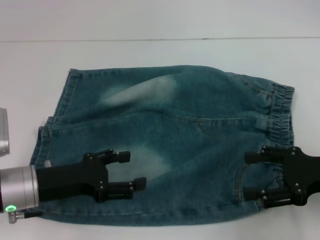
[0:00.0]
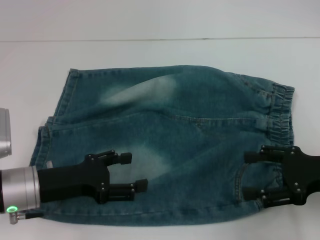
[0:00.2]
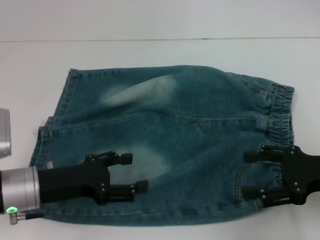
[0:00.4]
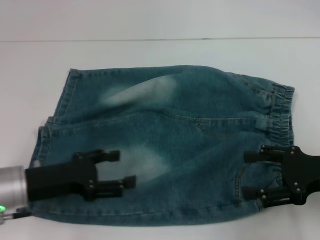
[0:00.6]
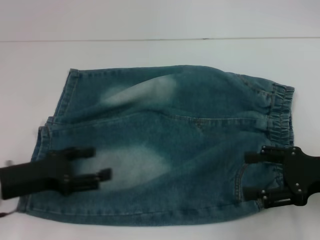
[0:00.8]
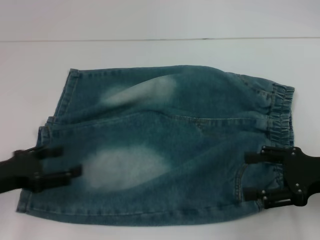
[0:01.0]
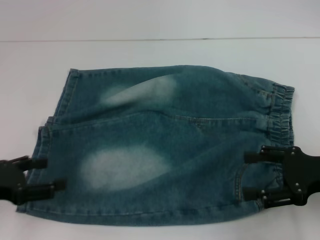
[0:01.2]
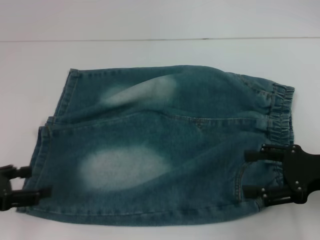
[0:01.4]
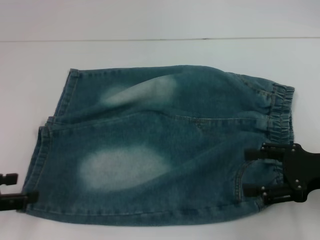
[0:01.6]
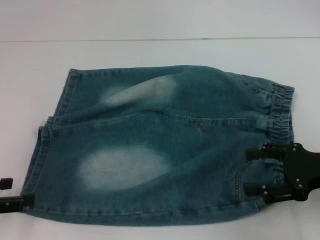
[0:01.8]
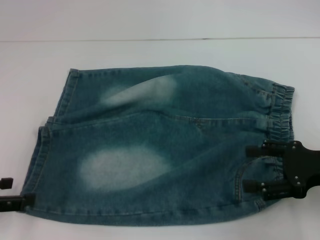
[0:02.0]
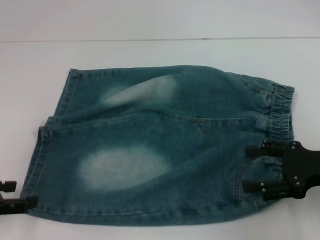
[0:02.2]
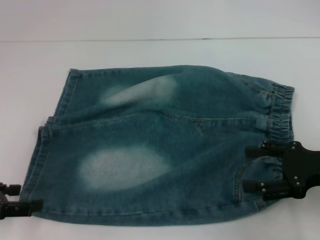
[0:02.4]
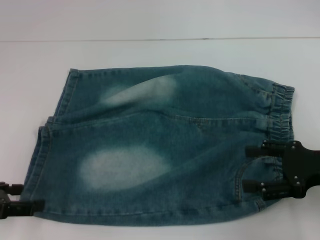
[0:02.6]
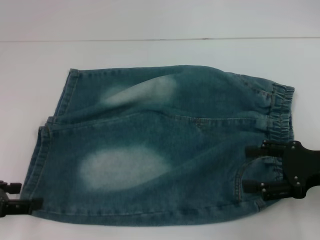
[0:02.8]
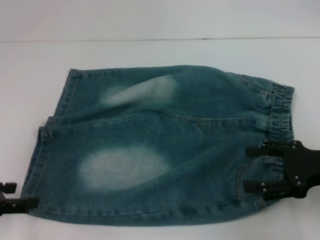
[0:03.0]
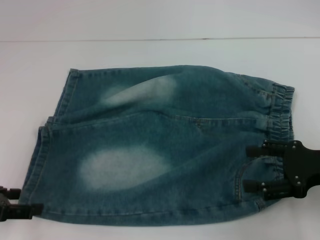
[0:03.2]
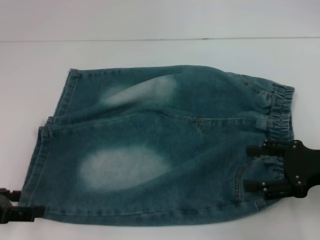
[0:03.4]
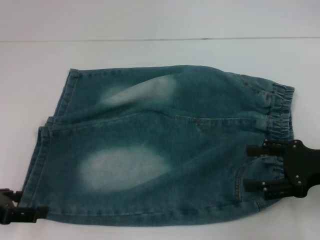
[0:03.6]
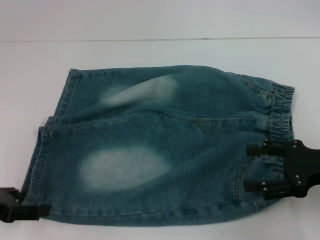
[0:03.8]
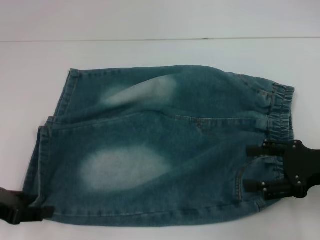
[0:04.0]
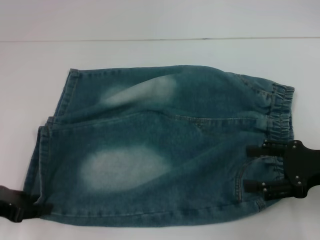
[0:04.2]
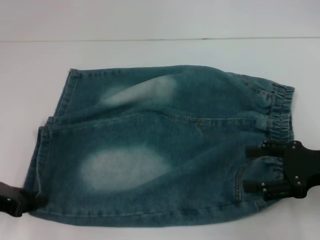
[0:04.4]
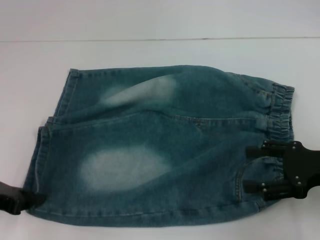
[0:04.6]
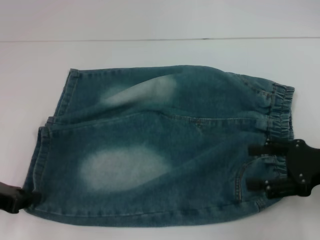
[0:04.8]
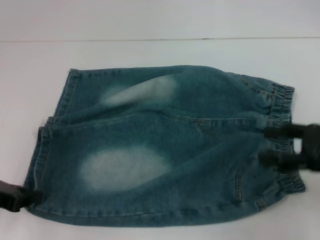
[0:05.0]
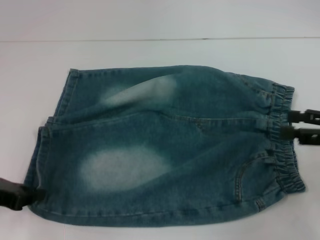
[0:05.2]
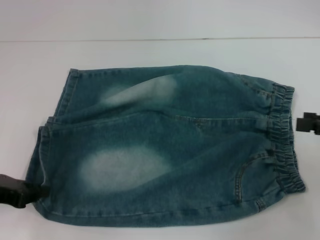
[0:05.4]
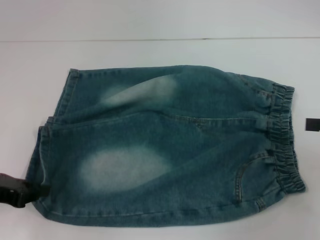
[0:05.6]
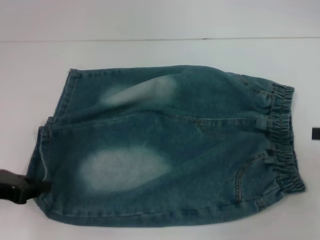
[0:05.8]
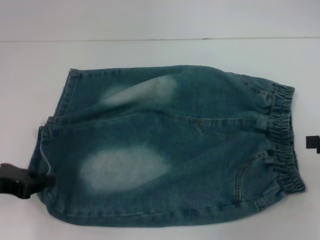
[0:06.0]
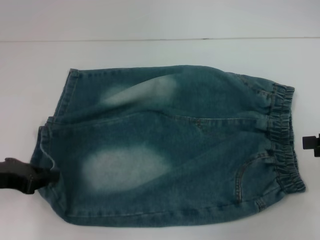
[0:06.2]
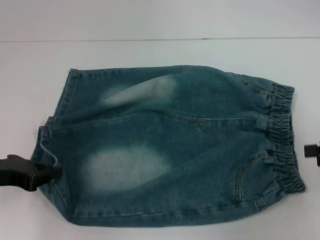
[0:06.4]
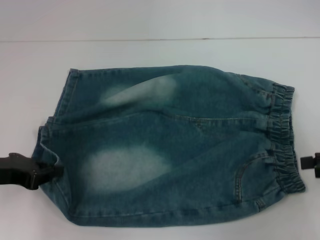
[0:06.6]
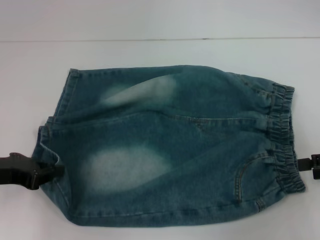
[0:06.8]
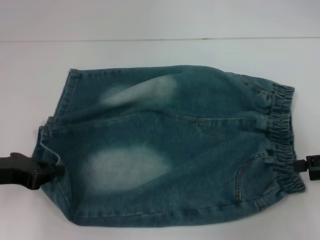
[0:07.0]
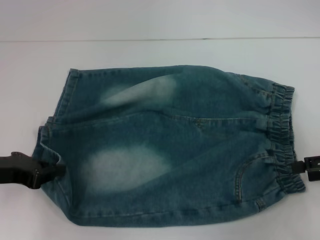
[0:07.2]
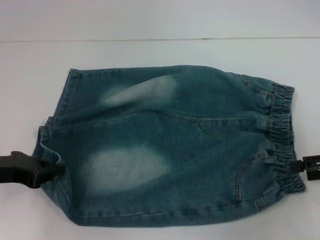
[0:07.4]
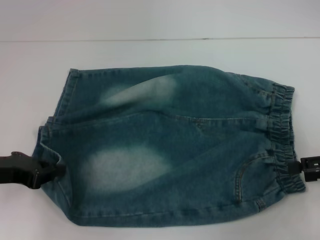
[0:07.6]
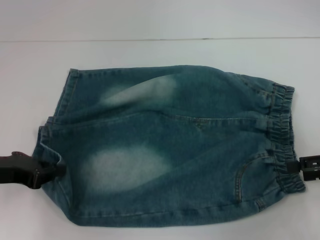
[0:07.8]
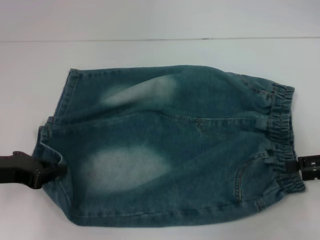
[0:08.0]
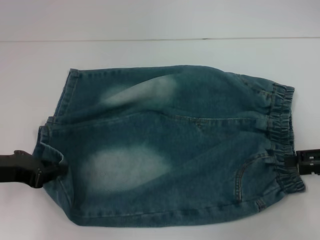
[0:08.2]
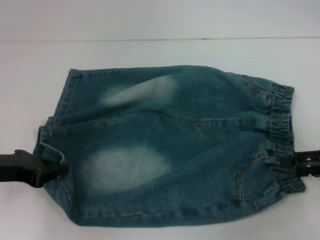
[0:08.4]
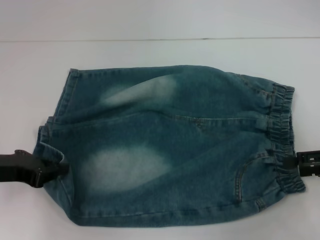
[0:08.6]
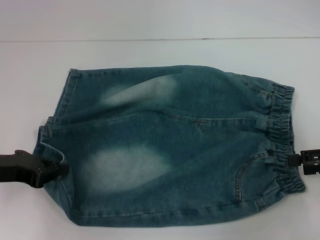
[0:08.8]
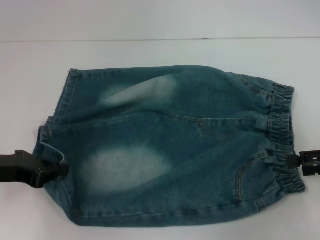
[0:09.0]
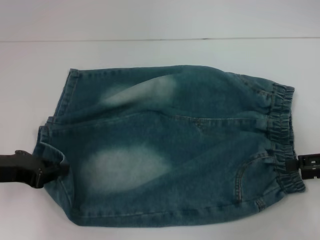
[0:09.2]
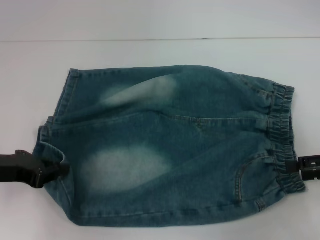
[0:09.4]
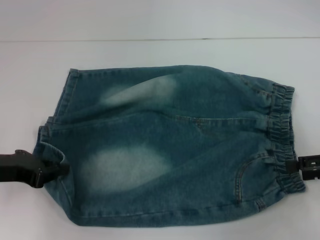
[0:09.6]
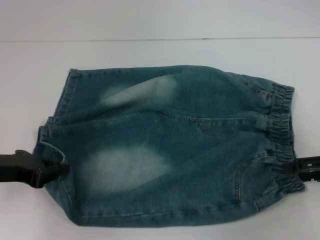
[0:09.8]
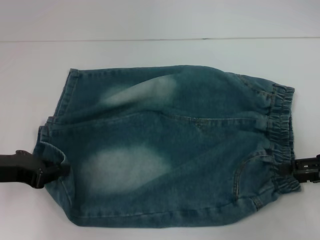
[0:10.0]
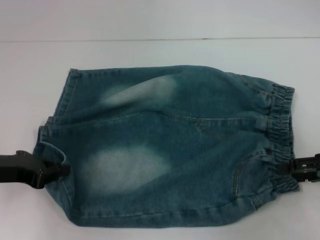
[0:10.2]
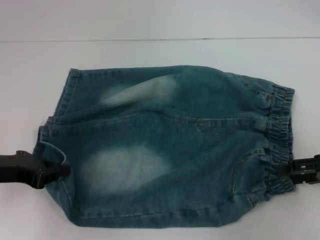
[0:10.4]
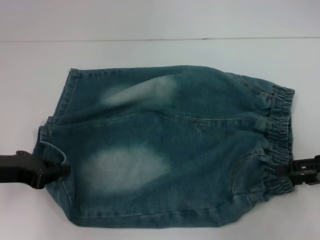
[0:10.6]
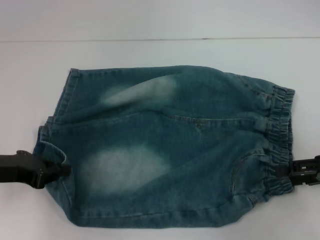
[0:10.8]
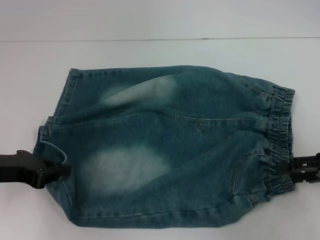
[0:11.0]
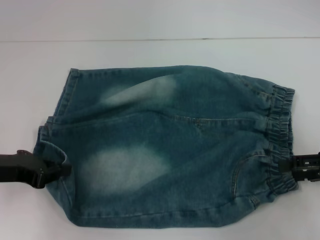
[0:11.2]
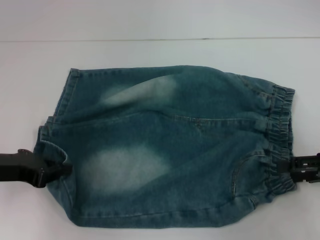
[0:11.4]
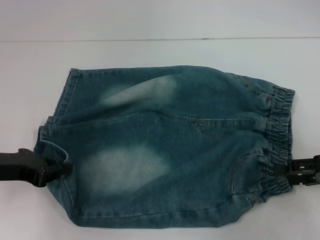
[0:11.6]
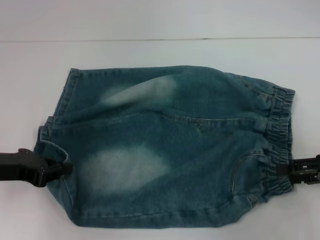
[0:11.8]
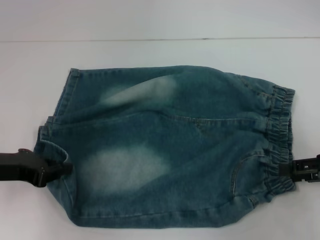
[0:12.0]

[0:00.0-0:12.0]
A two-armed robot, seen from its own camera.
Step, 0:00.0 to 0:04.8: Grab the lower left pant leg with your left hand.
0:00.0 to 0:01.6: The left gripper moves to the left and upward, about 15 cm.
0:01.6 to 0:03.0: The grippers move only a little.
0:03.0 to 0:04.4: The left gripper closes up.
0:04.4 to 0:06.0: The left gripper closes its fingers; the right gripper moves to the right, approximately 10 cm.
0:06.0 to 0:07.6: The grippers move only a little.
0:07.6 to 0:09.0: The two grippers keep their place.
0:09.0 to 0:10.4: There are only small adjustments of the grippers.
0:10.4 to 0:12.0: Both grippers stay about where they are.

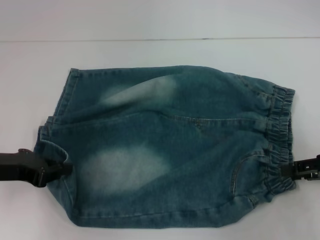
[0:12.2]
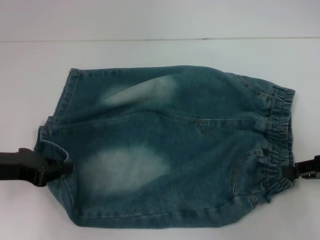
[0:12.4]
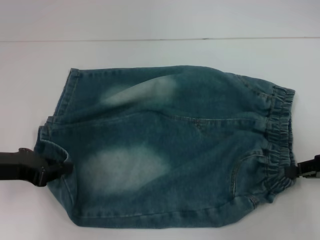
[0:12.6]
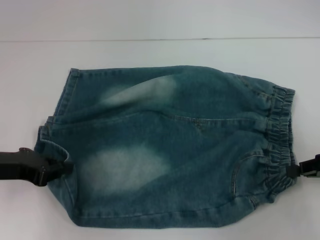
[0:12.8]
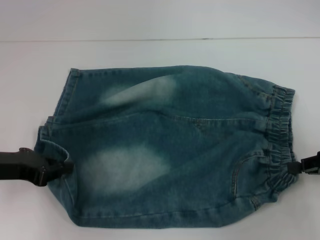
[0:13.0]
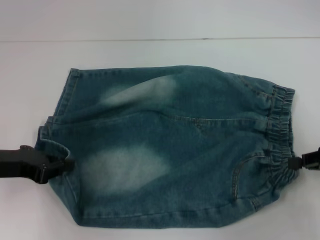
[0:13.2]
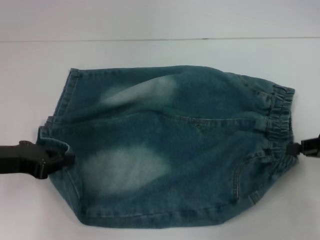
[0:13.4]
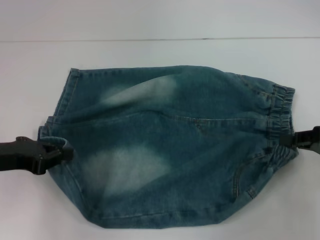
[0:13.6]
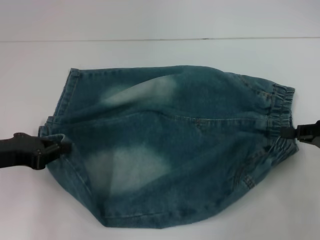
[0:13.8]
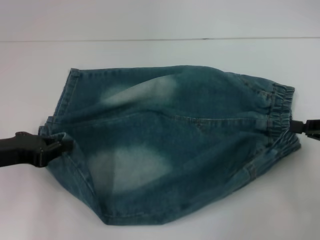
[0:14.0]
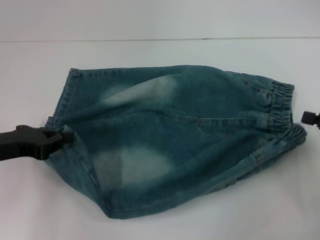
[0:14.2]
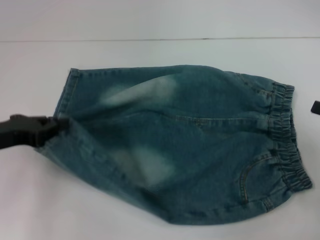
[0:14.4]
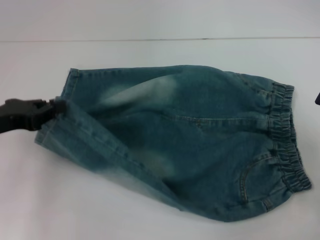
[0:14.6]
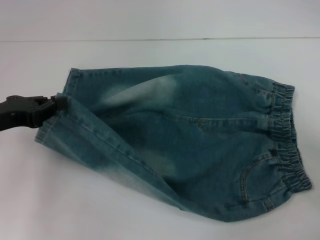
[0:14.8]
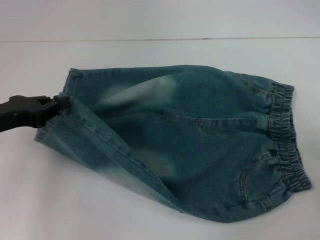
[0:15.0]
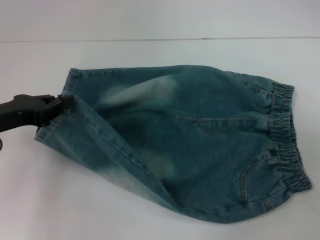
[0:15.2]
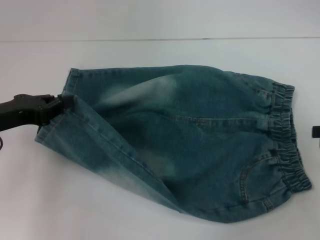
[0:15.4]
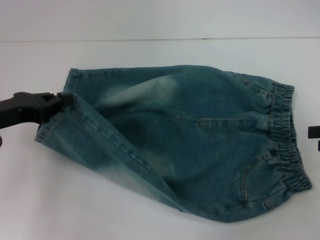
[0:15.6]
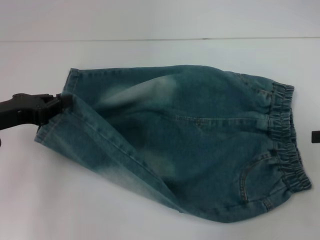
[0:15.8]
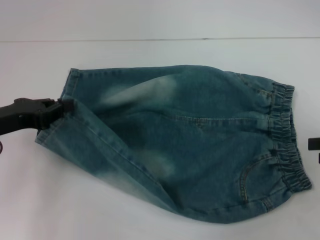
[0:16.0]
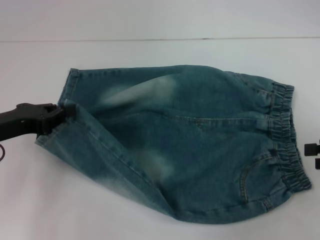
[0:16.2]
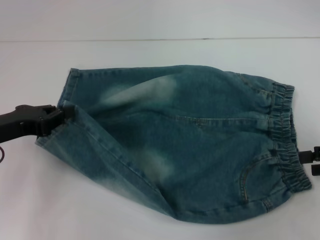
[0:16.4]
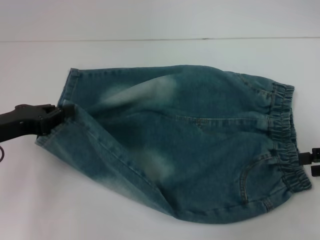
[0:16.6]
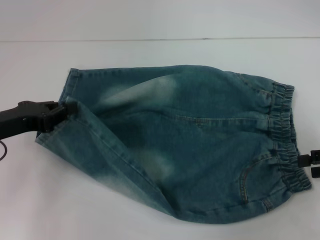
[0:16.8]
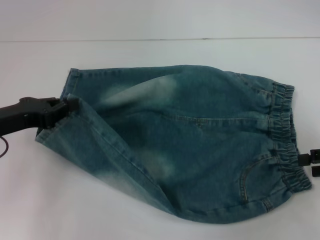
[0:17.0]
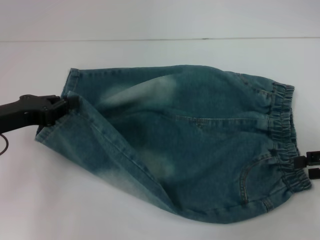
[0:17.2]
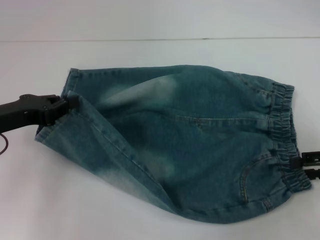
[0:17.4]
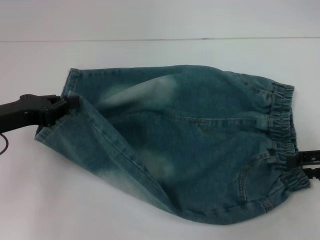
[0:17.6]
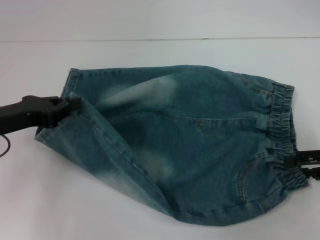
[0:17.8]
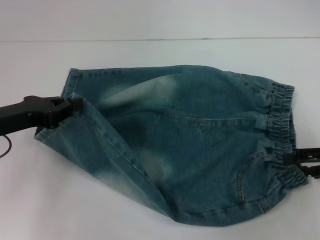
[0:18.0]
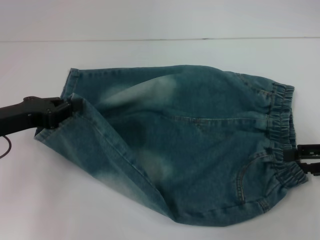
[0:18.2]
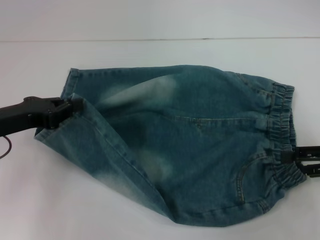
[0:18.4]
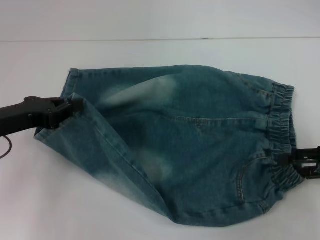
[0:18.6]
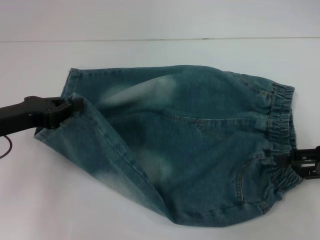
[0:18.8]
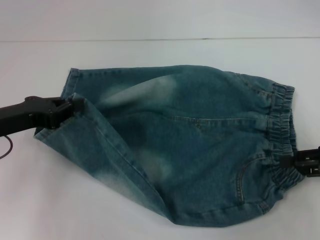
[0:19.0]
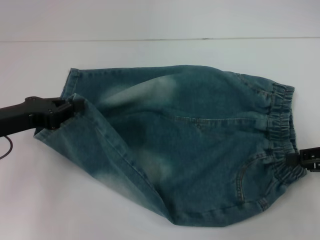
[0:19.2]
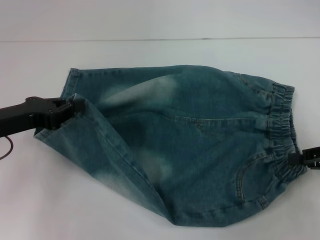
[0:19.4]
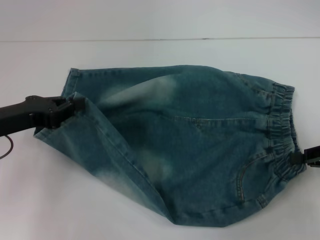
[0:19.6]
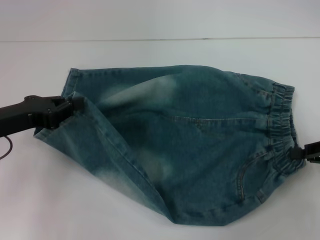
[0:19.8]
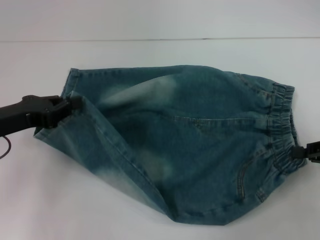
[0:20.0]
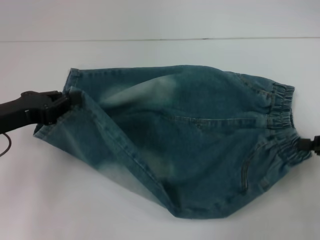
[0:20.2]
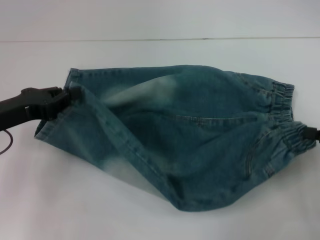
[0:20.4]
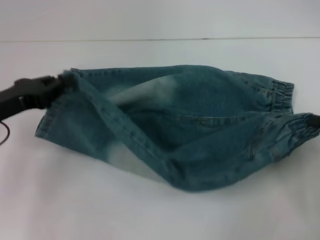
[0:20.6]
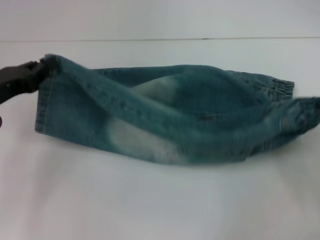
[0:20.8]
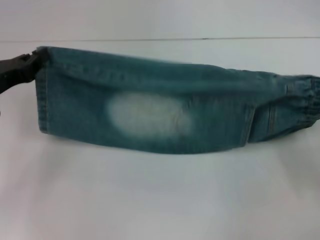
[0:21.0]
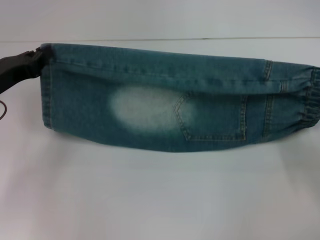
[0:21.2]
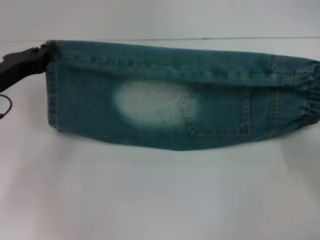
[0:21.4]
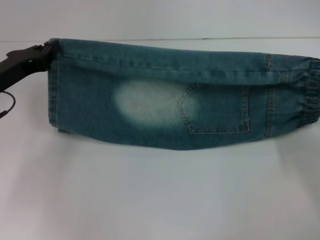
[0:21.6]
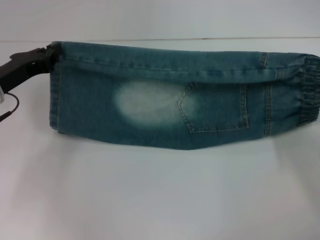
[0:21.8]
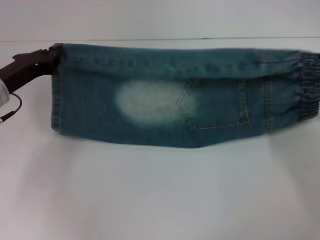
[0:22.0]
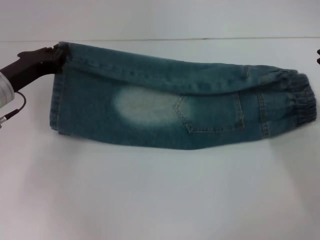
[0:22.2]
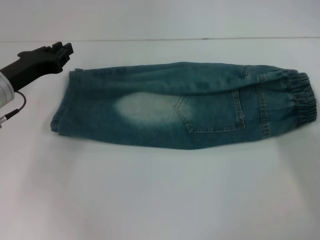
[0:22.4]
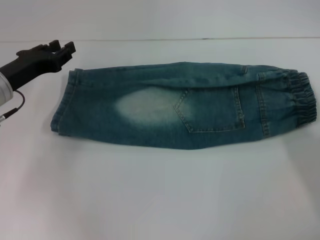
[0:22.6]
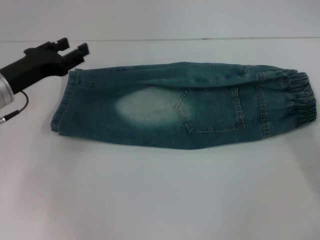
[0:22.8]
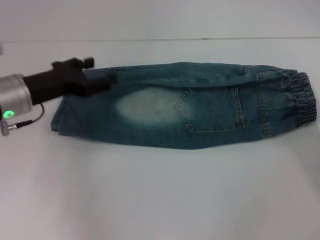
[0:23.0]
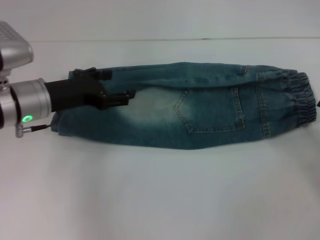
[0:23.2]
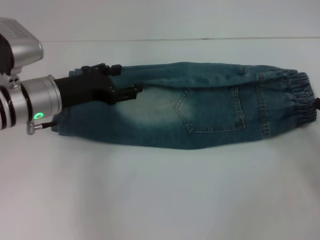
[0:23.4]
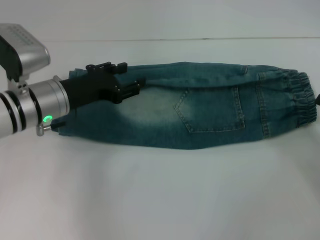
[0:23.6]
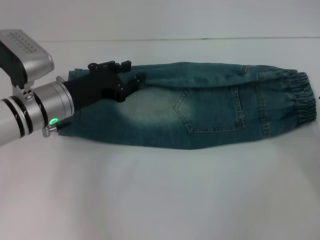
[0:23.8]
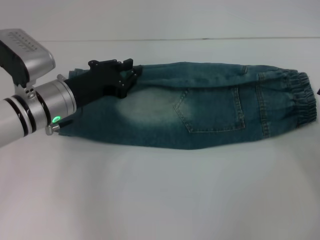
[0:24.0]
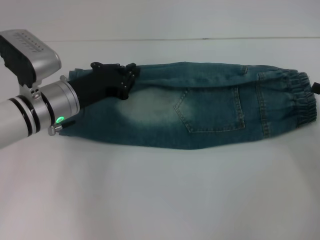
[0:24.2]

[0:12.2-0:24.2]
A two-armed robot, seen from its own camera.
Step, 0:12.2 to 0:19.8: Hold the lower right waistband with your right hand.
Step, 0:20.0 to 0:22.8: Fold upward with your right hand.
0:12.2 to 0:13.8: The right gripper closes up.
0:13.8 to 0:15.2: The right gripper heads to the right, covering about 5 cm, and opens its fingers.
0:15.2 to 0:16.6: The right gripper opens.
0:16.6 to 0:18.2: The grippers move only a little.
0:18.2 to 0:19.8: The right gripper closes its fingers.
0:21.2 to 0:22.6: The right gripper opens.
0:22.6 to 0:24.2: The left gripper heads to the right, covering about 10 cm, and opens and closes again. The right gripper opens its fingers.
